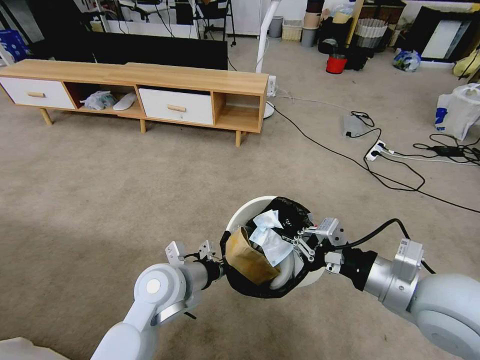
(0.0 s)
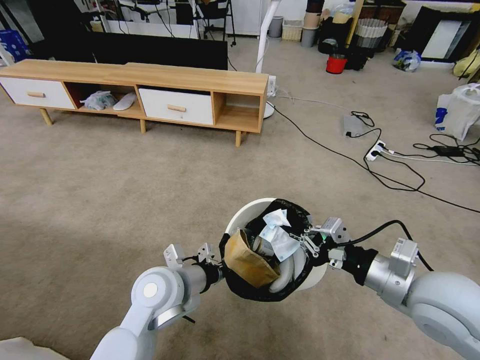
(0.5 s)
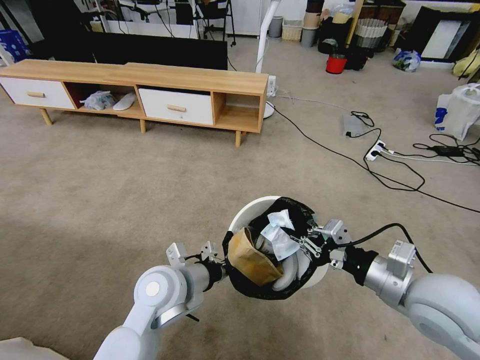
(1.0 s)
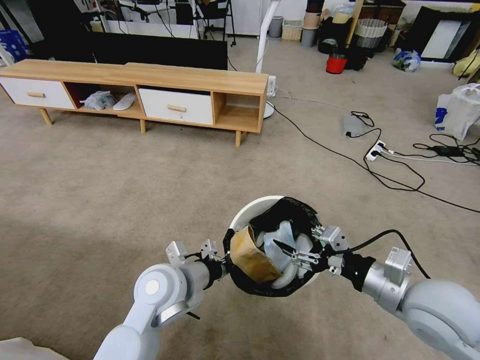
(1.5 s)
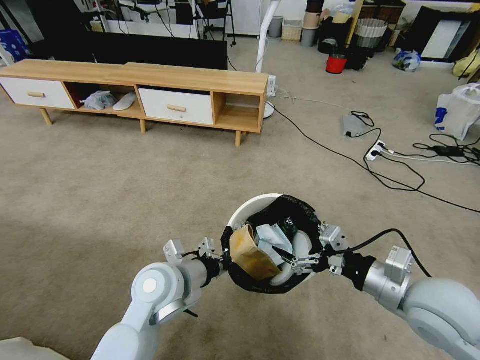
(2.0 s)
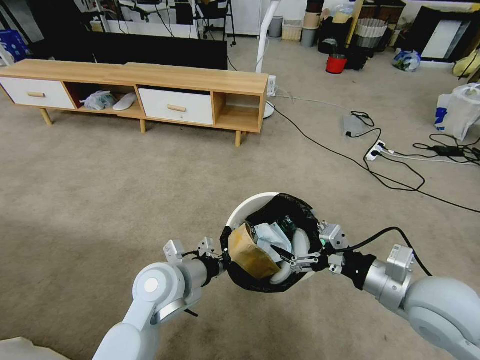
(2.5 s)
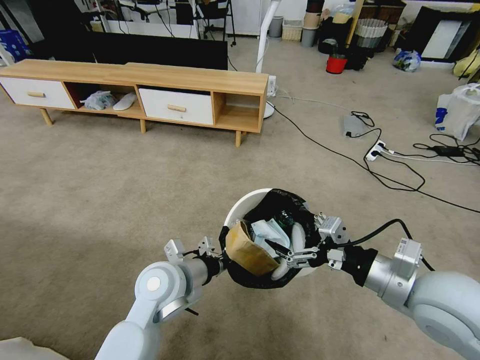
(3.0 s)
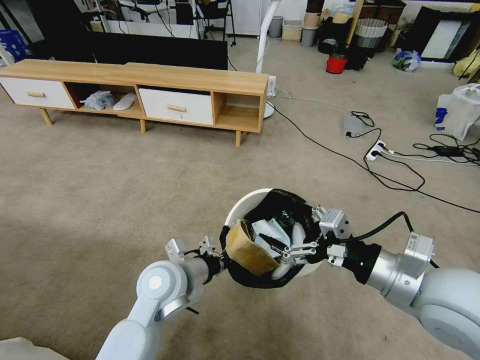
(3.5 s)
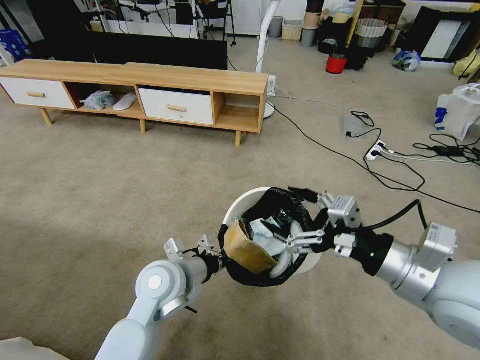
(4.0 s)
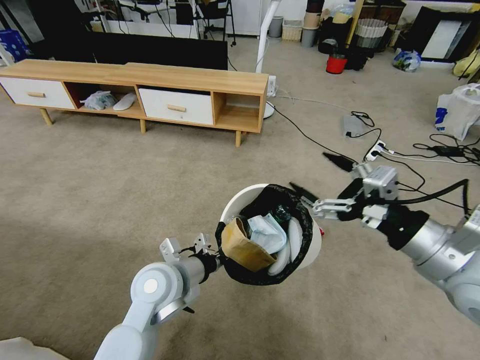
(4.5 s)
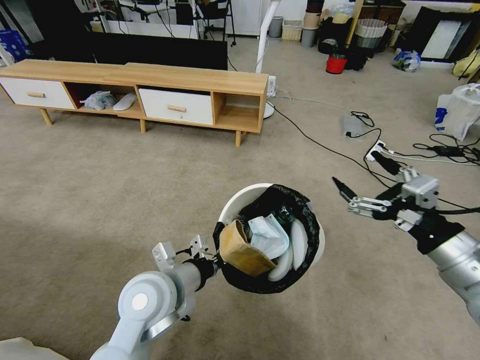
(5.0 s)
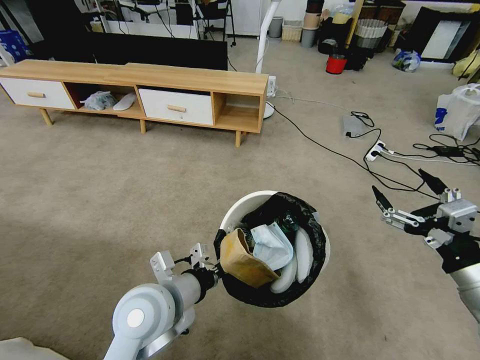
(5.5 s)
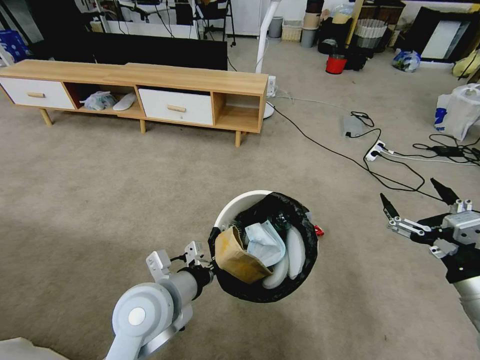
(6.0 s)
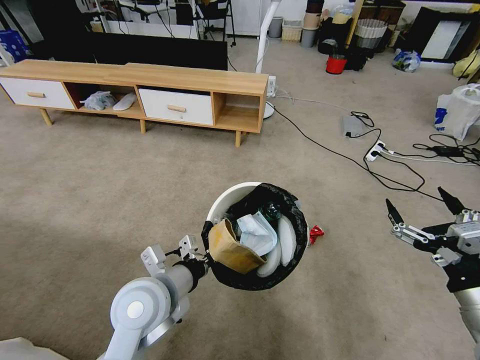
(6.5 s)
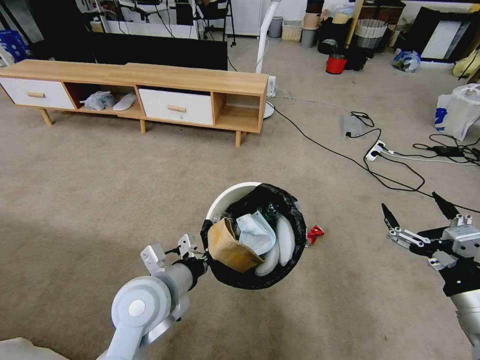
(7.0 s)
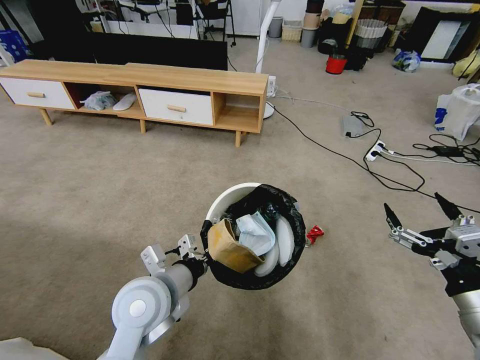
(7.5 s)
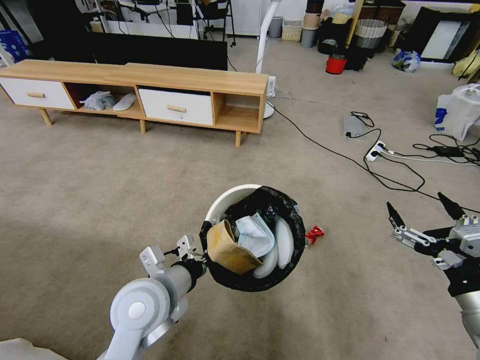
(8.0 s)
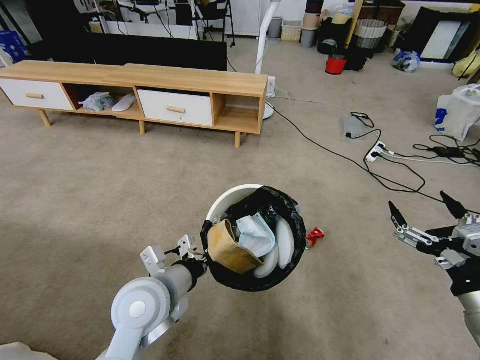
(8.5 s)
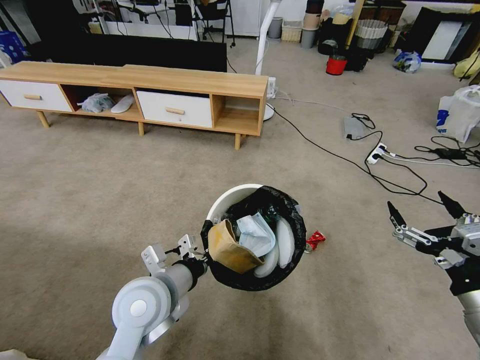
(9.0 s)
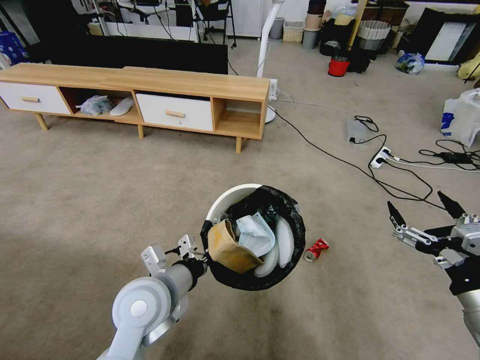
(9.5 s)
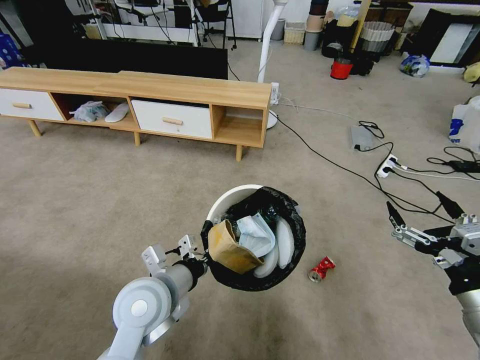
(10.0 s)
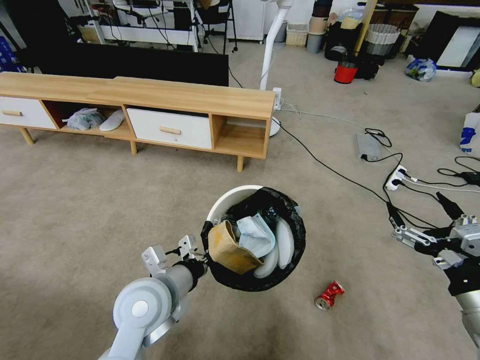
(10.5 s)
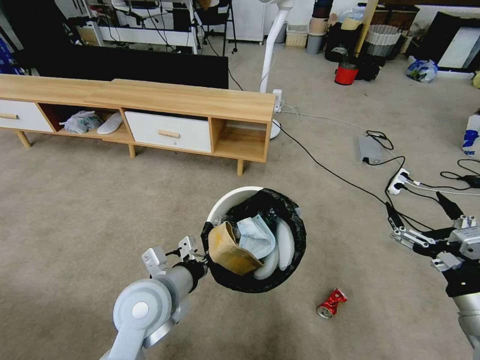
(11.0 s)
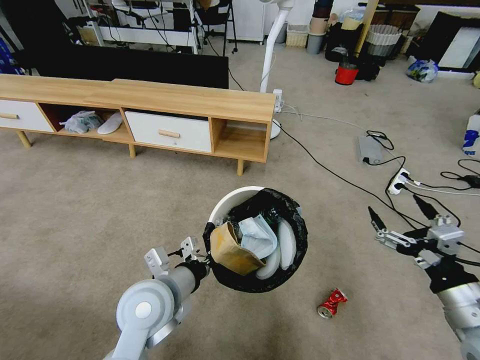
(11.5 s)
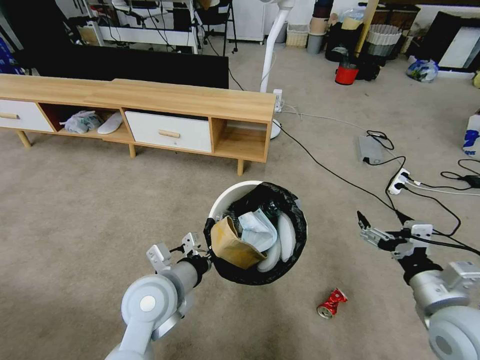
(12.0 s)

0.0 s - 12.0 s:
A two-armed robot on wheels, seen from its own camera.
Task of the whole recording: Pick up the trash bin and place the garbage on the floor into it.
0.0 s - 2.0 s: The right gripper moves roughly 5 cm, and opens up.
2.0 s - 4.0 s: The right gripper is displaced upward by approximately 10 cm.
4.0 s - 6.0 s: The left gripper is displaced backward by some 5 cm, while the right gripper moves to the right and downward, roughly 15 cm.
6.0 s - 8.0 s: The grippers stay close to where they were, moving slightly.
10.0 s - 12.0 s: The right gripper shifts by about 5 cm.

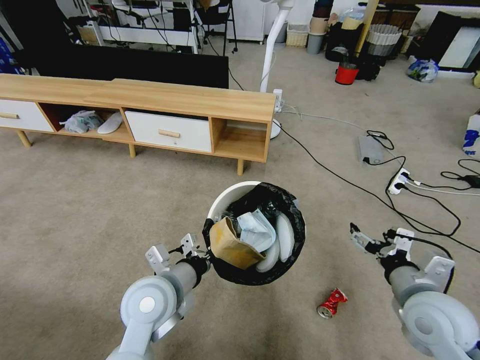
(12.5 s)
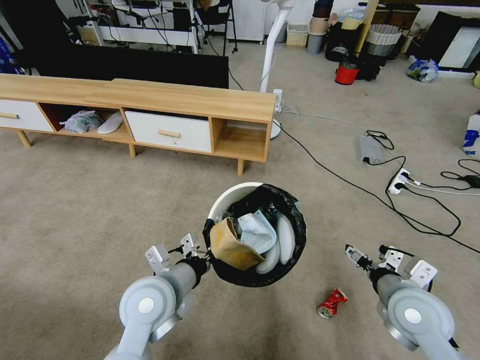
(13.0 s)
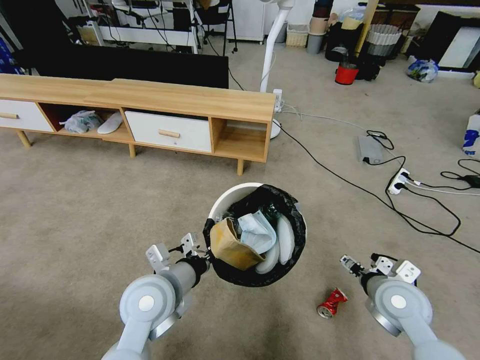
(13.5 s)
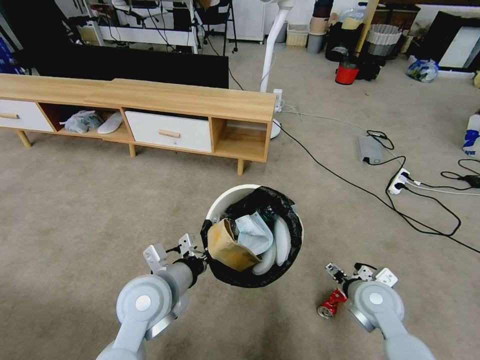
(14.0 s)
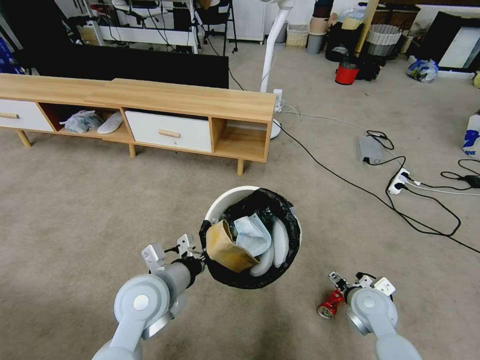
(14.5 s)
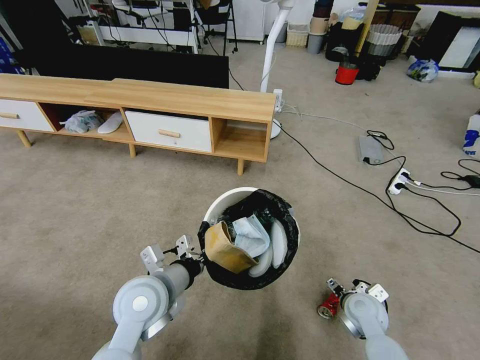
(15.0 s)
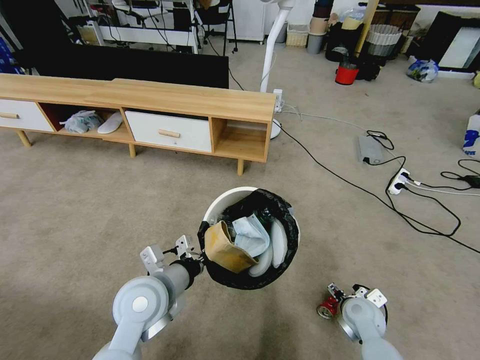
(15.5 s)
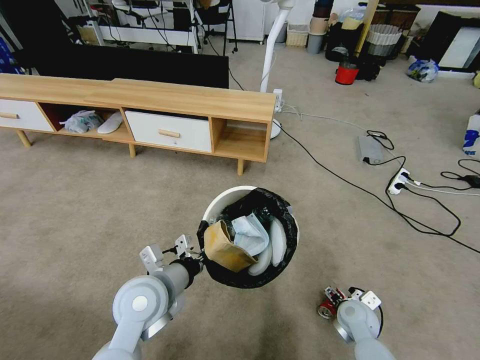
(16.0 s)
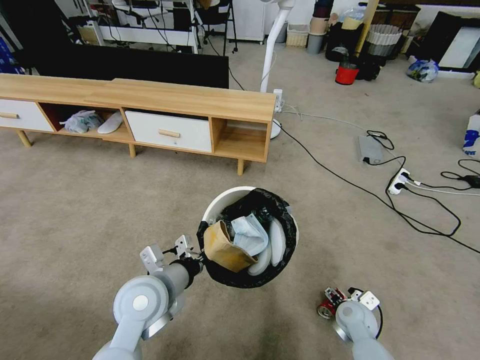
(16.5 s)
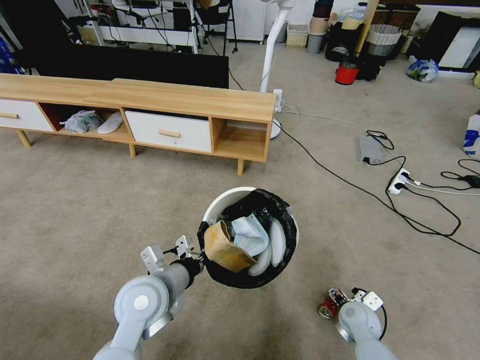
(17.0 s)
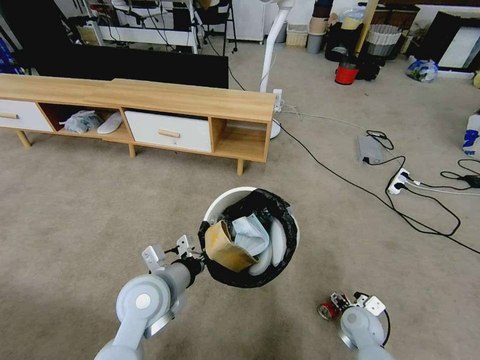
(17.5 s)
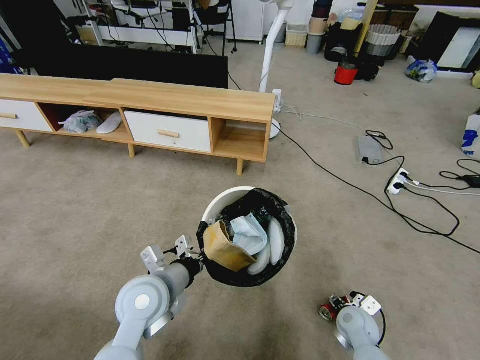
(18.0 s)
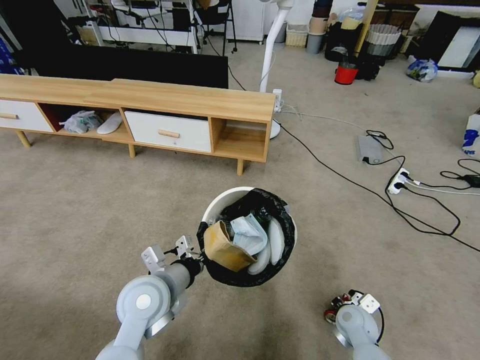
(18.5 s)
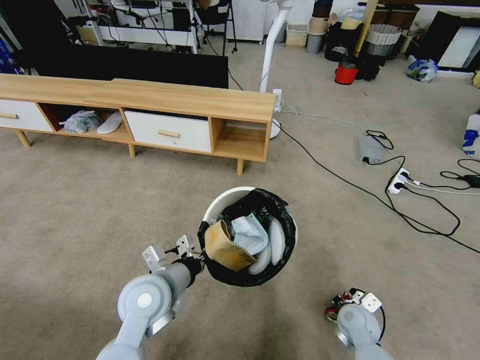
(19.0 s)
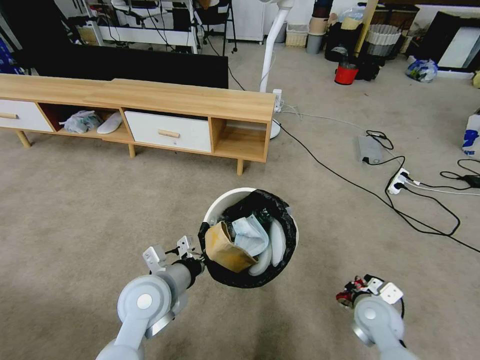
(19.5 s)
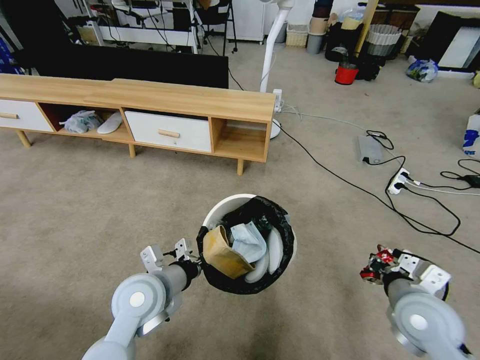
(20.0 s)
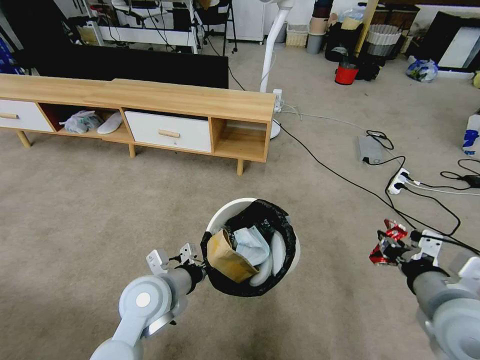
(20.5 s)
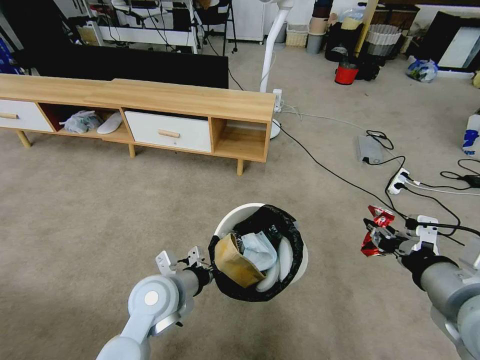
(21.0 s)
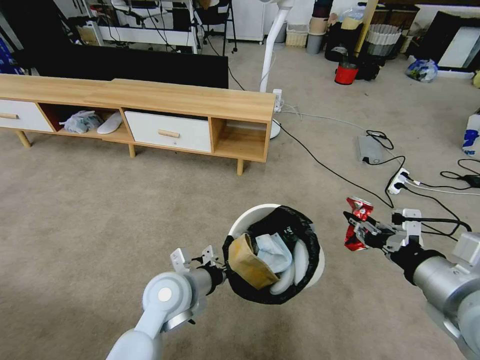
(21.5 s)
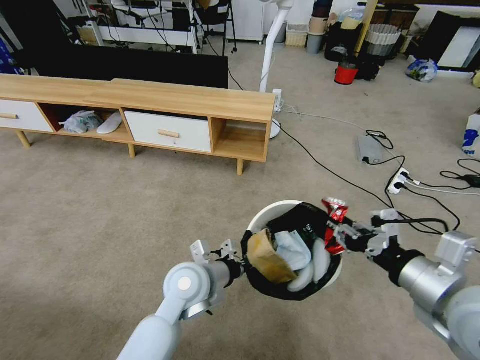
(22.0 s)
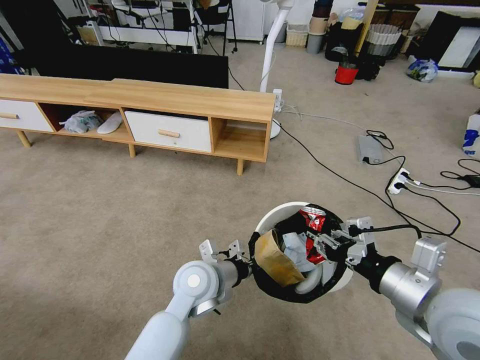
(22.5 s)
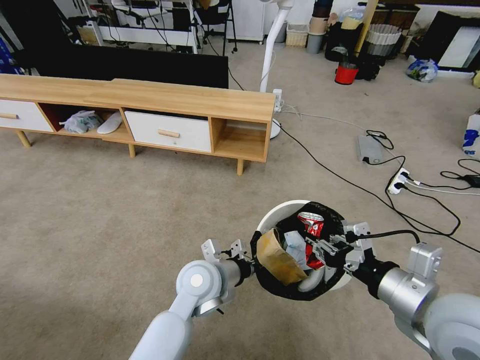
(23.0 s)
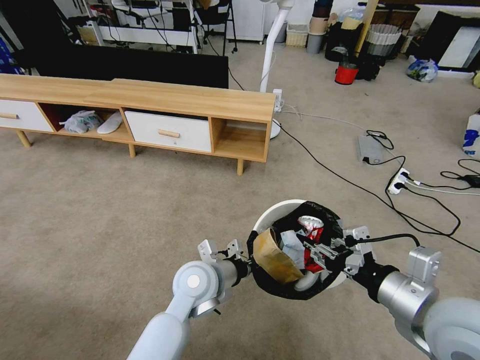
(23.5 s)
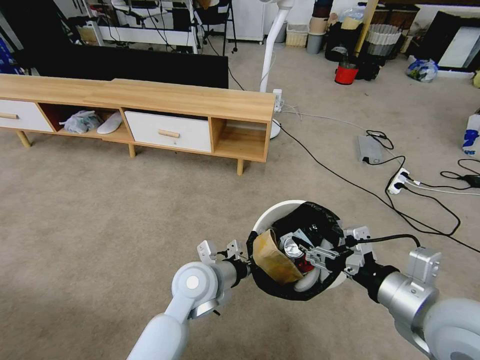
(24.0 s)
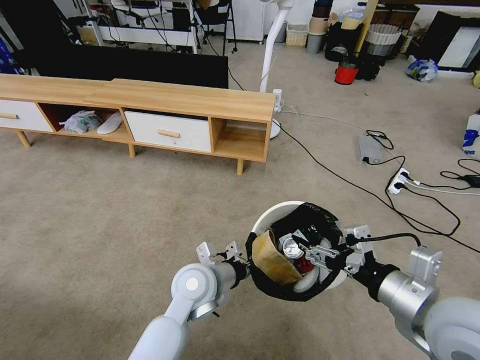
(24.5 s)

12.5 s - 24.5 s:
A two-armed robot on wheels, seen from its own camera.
Task of the whole recording: Pick up the trash bin and place the garbage on the floor into it.
12.5 s - 14.5 s: The right gripper travels downward and forward by about 15 cm.
14.5 s - 16.5 s: The right gripper moves downward, some 10 cm.
16.5 s - 18.5 s: The right gripper closes its fingers.
18.5 s - 20.5 s: The right gripper moves upward, approximately 30 cm.
20.5 s - 22.5 s: The left gripper heads to the right, covering some 10 cm.
22.5 s - 24.5 s: The right gripper opens its fingers.

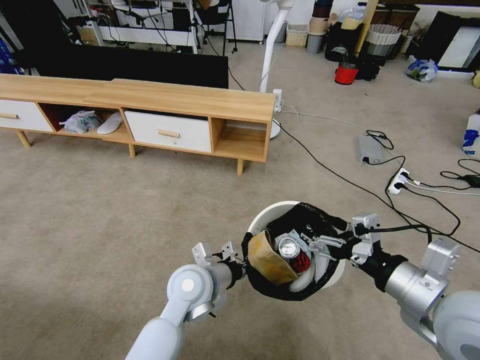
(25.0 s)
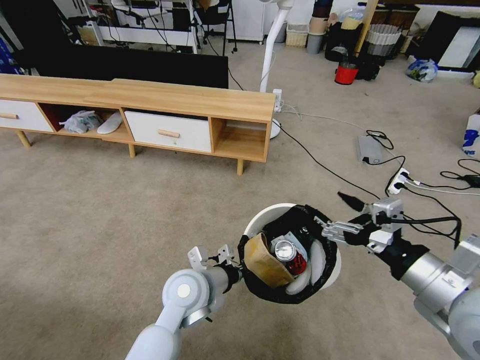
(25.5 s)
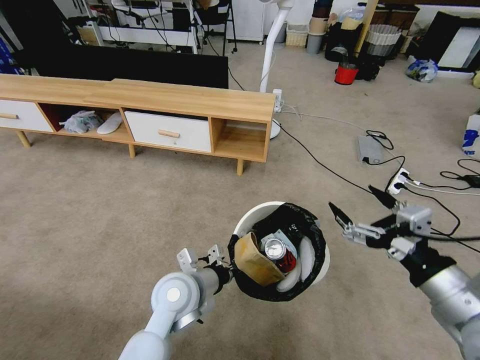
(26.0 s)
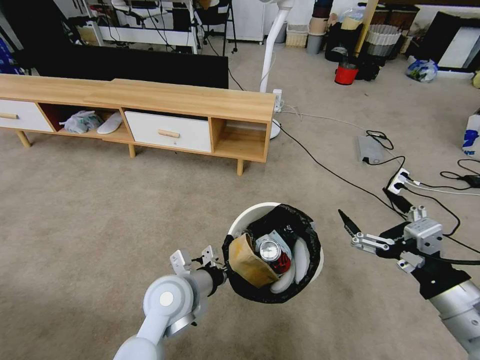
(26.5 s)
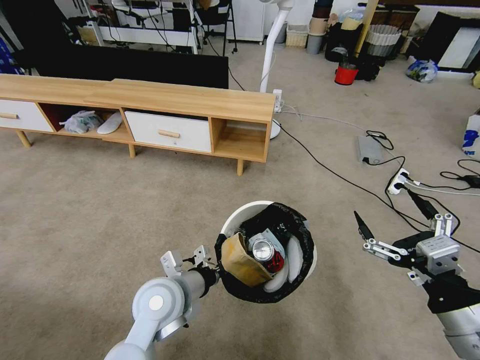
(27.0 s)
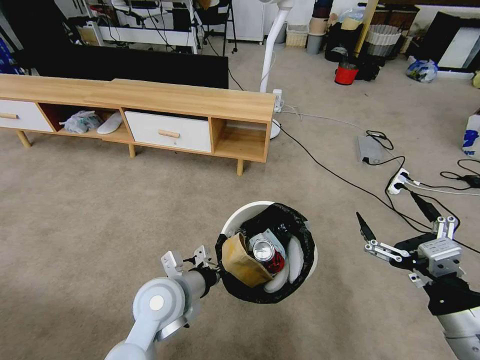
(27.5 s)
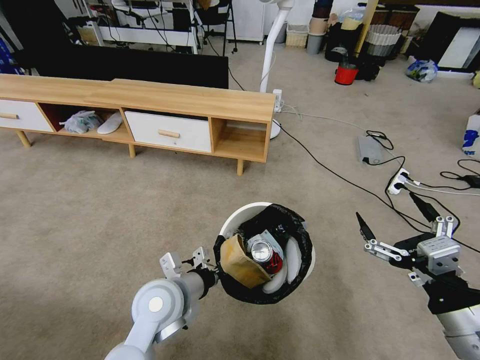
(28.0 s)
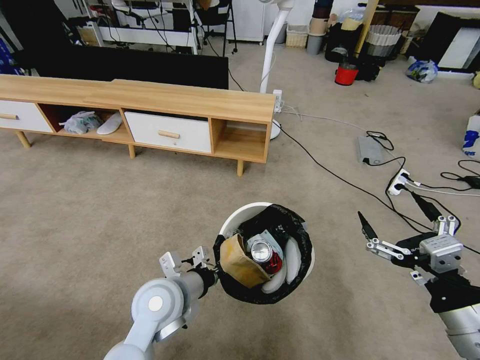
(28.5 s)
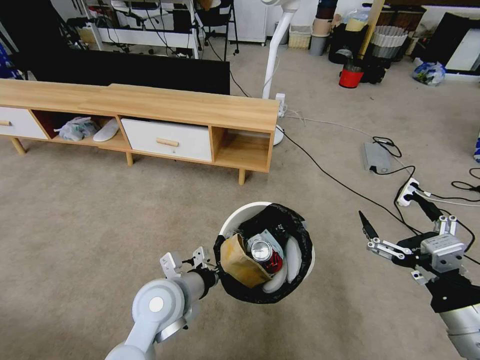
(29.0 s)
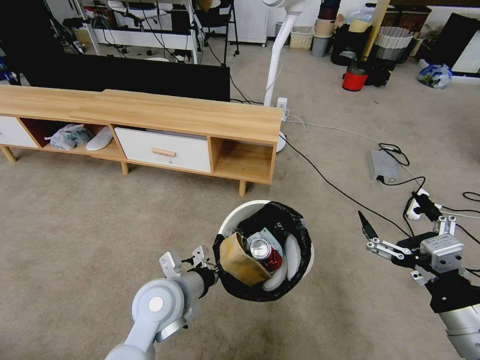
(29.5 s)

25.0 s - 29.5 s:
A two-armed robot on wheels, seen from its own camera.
Task of the whole recording: Pick up the trash bin and place the garbage on the floor into it.
25.0 s - 27.0 s: The right gripper travels backward by some 5 cm, while the left gripper is displaced to the left by roughly 5 cm.
